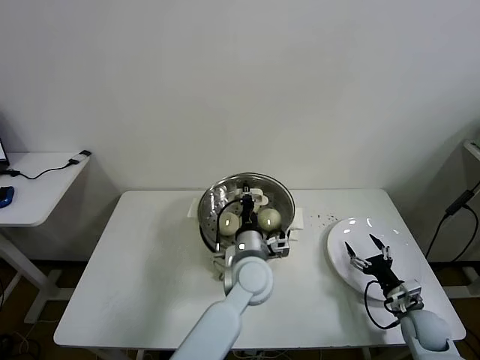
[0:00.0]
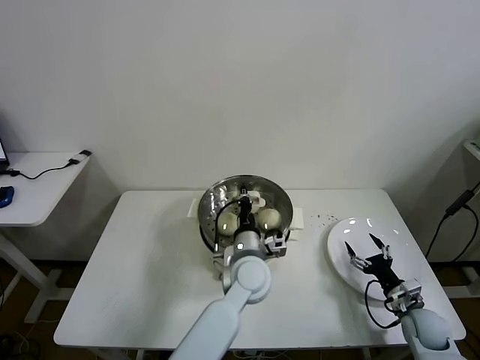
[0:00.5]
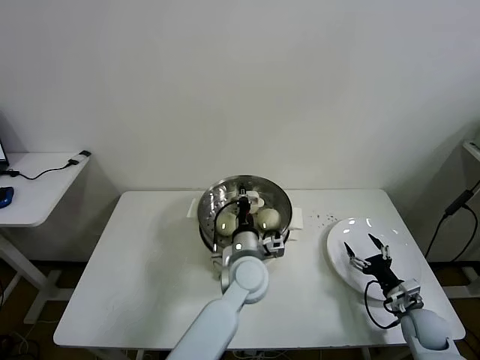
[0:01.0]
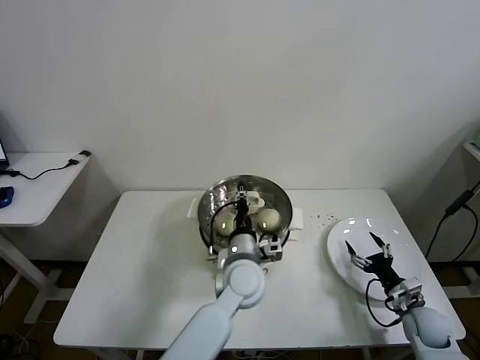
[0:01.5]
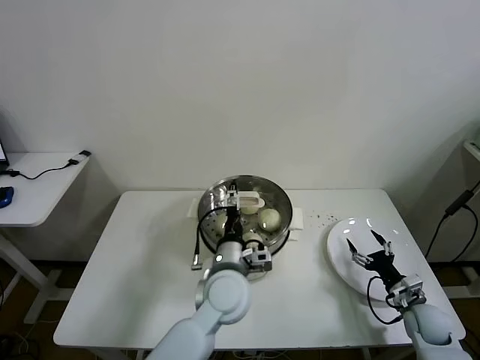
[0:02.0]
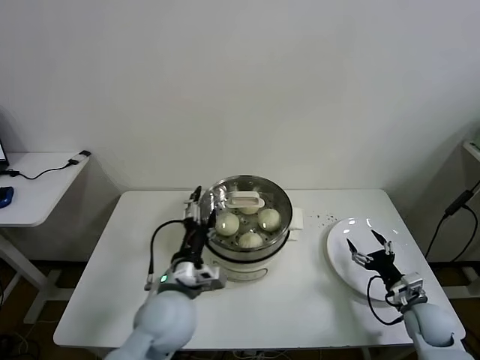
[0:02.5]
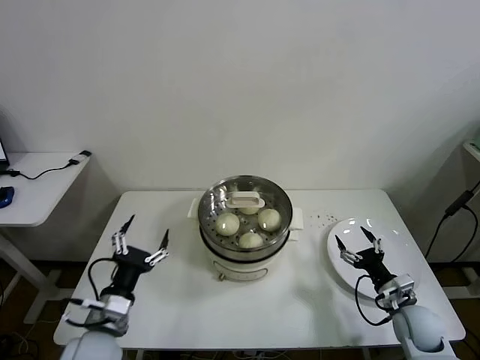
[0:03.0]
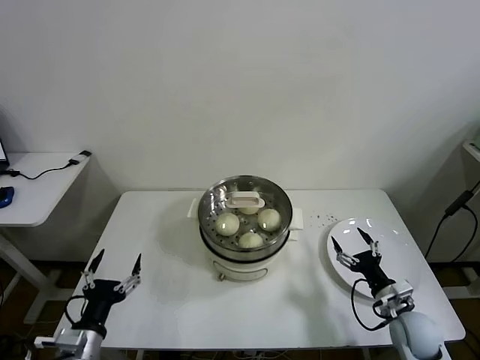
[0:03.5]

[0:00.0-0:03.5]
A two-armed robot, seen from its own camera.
Task of the whole recording: take steamed baozi put them in steamer then cover it.
0:00.0 to 0:02.0: The left gripper shifts by approximately 5 cm, and opens.
0:02.0 to 0:03.5: The left gripper moves to the left and backward, roughly 30 cm. Meanwhile the right gripper is displaced to the left by about 5 cm.
